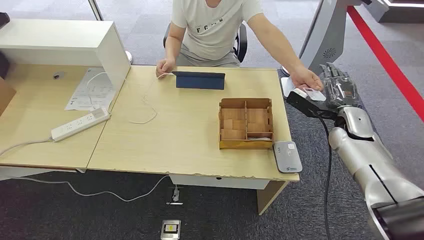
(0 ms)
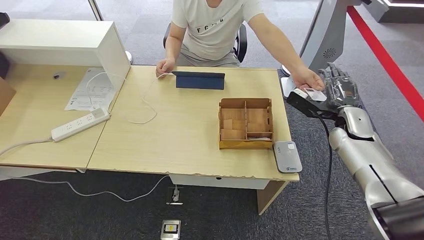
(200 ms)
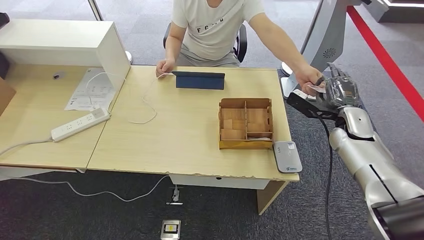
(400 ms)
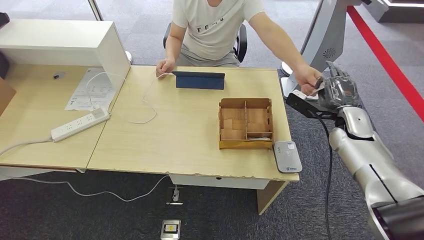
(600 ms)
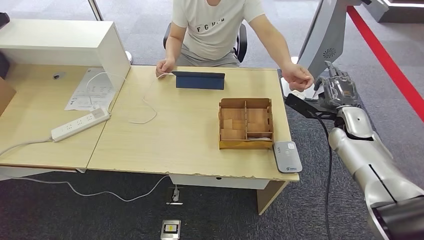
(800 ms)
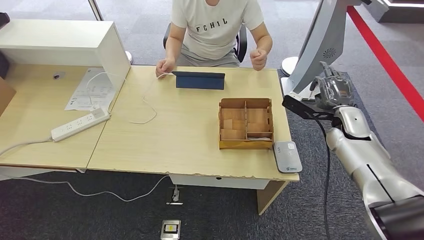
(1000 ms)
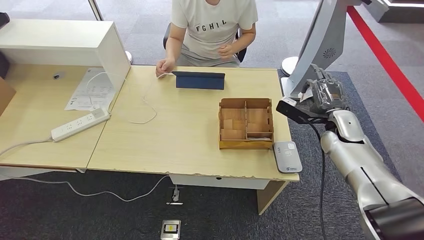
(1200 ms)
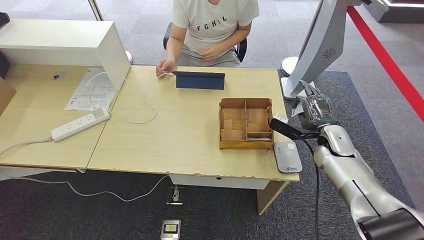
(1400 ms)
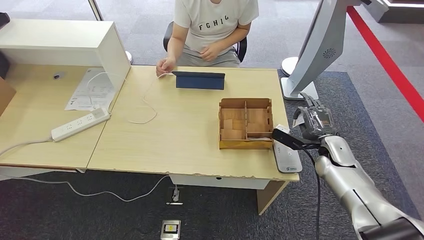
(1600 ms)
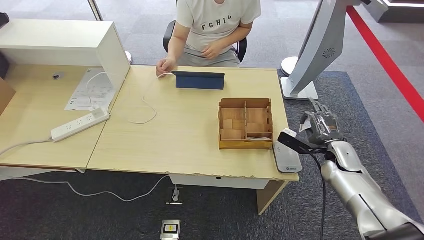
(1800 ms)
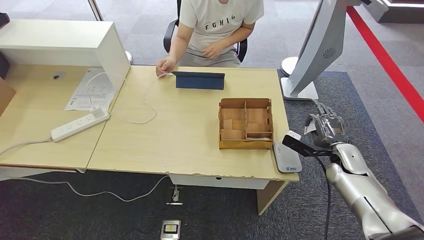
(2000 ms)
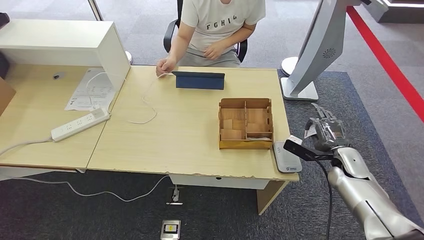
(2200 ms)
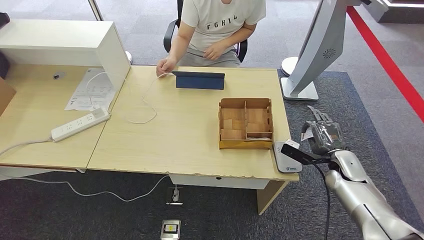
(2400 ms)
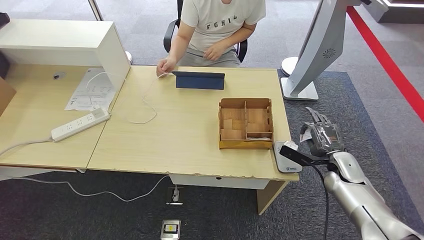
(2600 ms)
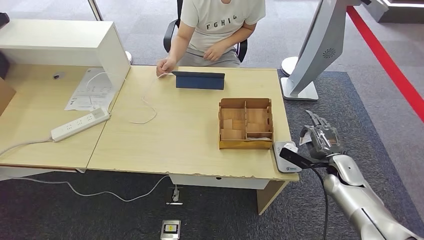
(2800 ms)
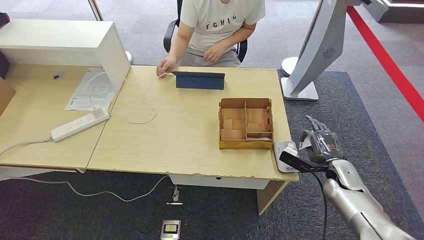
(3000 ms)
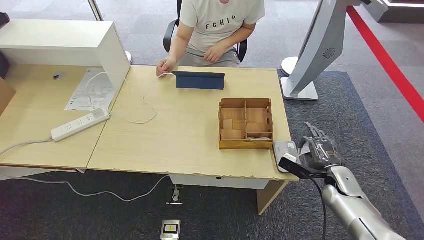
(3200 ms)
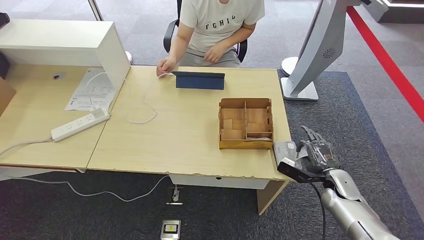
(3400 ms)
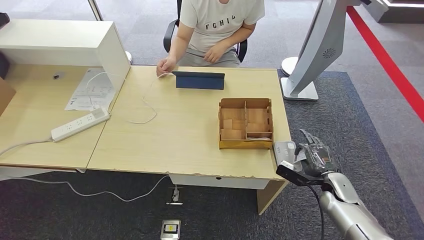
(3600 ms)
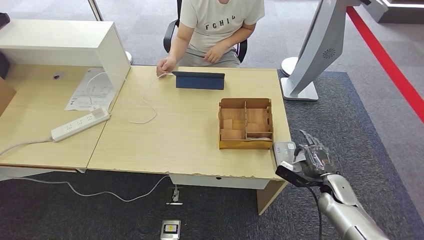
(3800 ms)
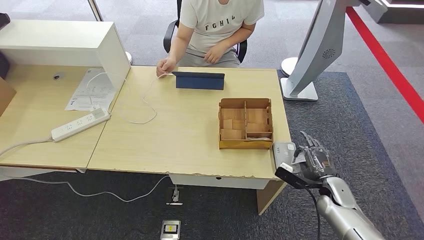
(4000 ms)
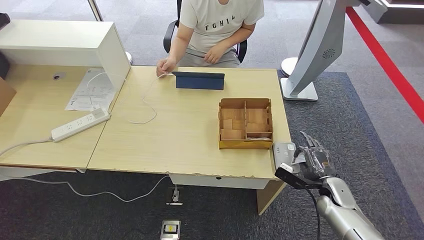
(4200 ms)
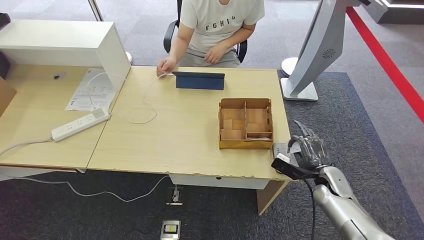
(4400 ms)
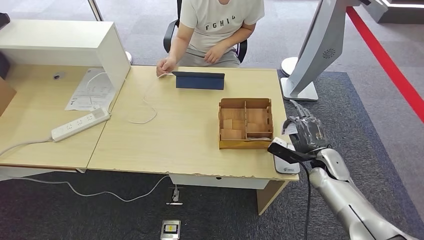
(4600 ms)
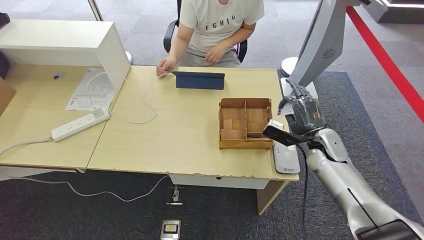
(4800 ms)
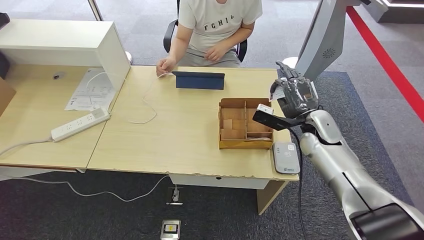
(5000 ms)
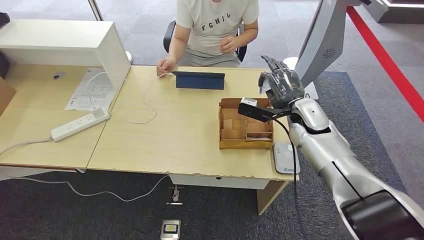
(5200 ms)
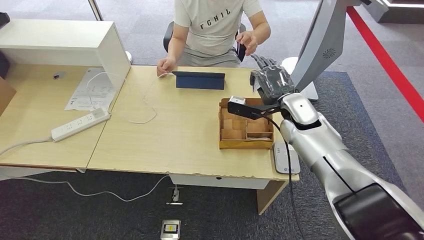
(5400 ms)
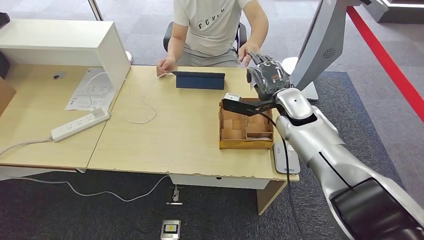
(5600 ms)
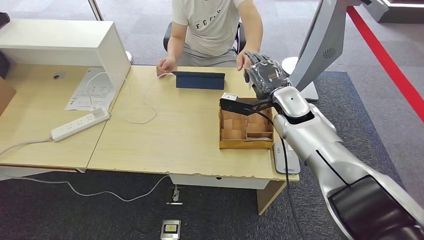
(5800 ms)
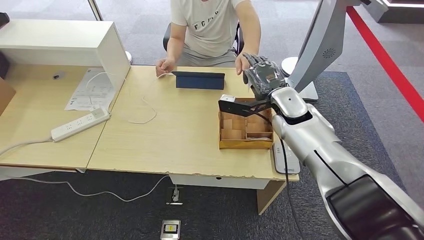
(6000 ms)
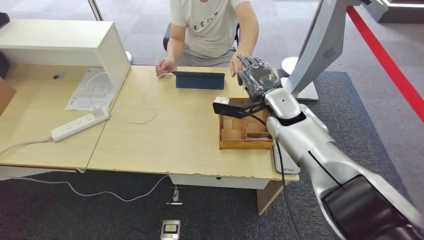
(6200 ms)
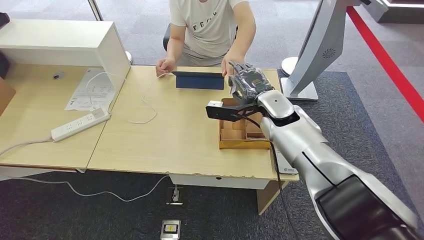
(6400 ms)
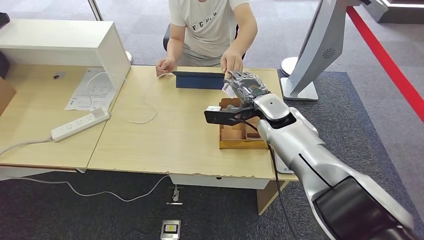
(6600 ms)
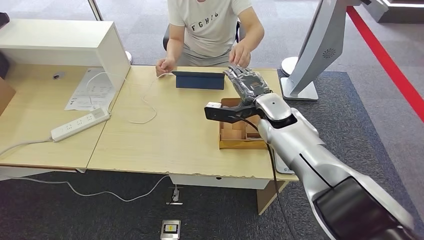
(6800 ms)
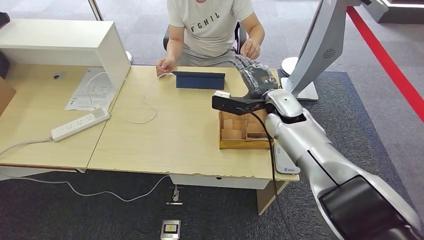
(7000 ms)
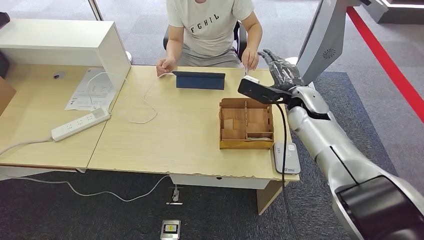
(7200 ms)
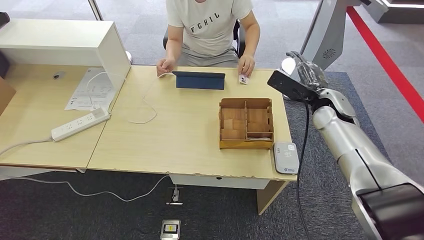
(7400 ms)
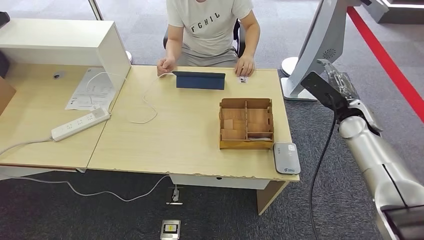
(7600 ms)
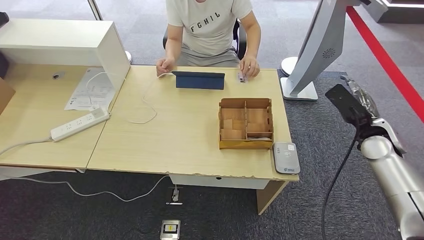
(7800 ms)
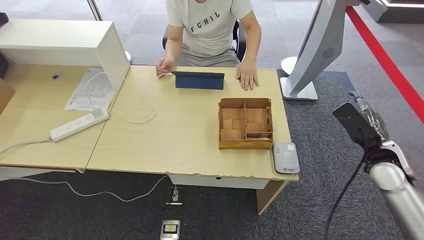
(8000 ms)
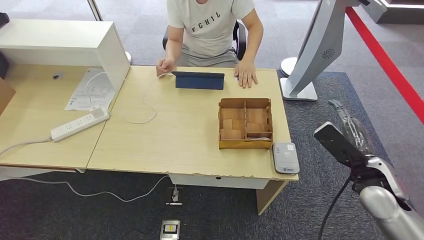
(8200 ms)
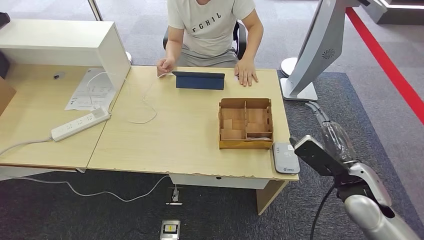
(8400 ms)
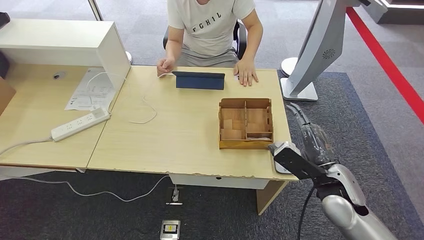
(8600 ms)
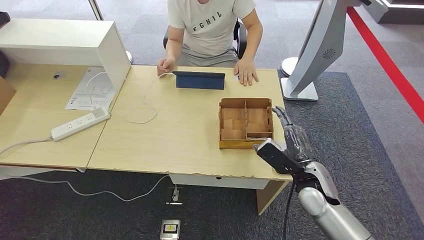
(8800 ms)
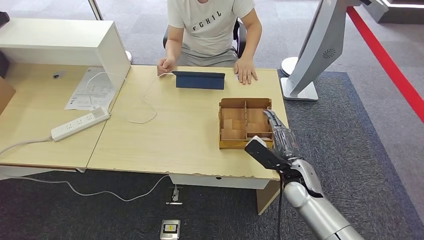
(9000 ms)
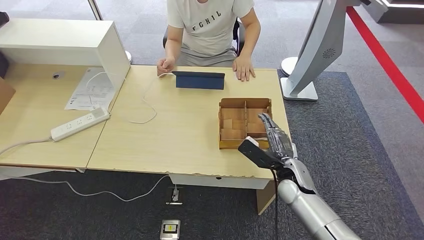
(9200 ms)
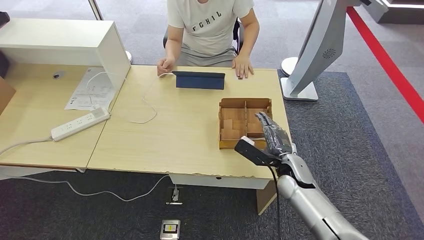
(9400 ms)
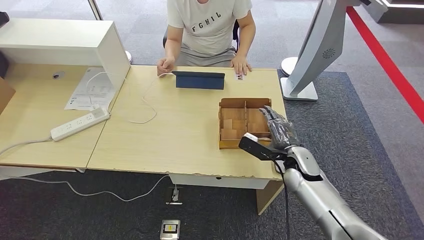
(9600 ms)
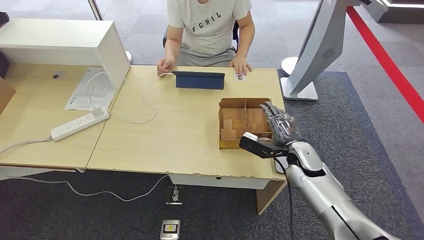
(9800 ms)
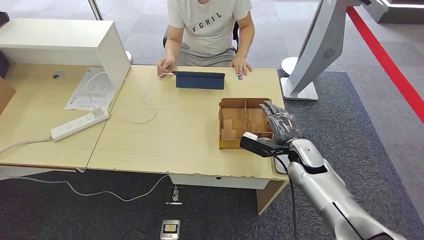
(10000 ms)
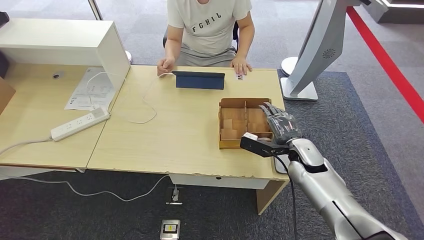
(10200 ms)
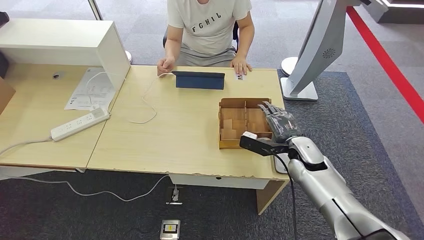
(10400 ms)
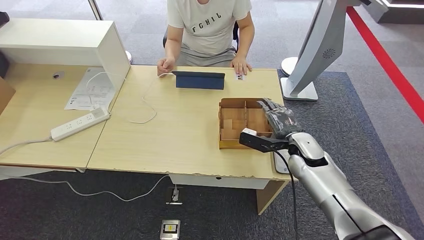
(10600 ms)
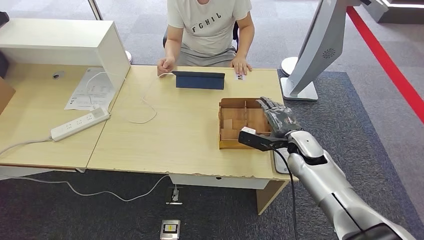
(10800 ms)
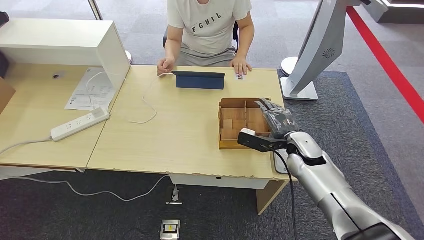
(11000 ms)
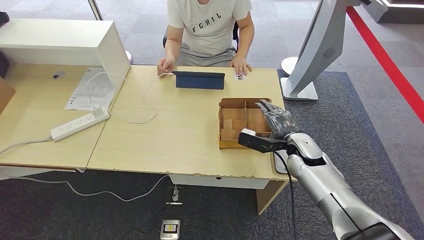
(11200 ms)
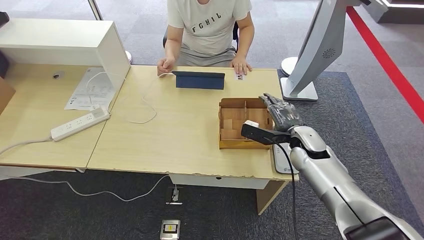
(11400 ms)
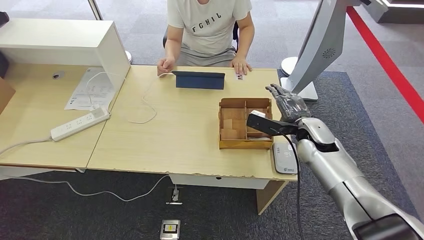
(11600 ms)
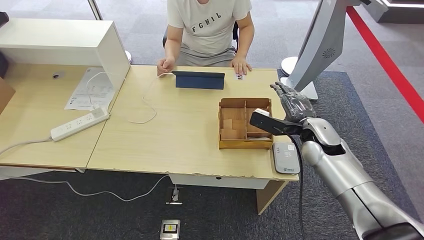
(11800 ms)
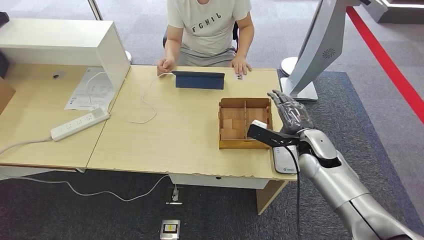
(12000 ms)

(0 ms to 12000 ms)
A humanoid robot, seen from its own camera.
Step, 0 ms - 800 ms: Take the ID card from the person's hand.
Step, 1000 ms - 6000 ms: Place the ID card on the card reader.
Step, 6200 ms - 9600 ms: Hand the ID card to the person.
1600 ms - 3000 ms: The right hand is displaced downward by some 5 cm.
3000 ms - 4400 ms: The right hand shifts by some 5 cm.
4400 ms - 6000 ms: The right hand goes some 30 cm upward, to the left and forward.
6000 ms - 7600 ms: The right hand moves to the right, some 15 cm.
7600 ms - 9000 ms: The right hand travels downward, to the left and backward by some 20 cm.
9000 ms - 10400 ms: The right hand moves forward, some 5 cm.

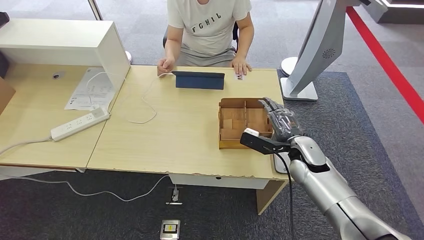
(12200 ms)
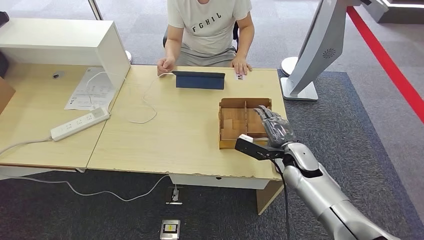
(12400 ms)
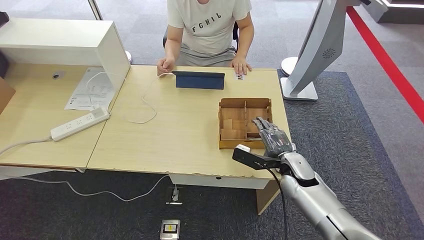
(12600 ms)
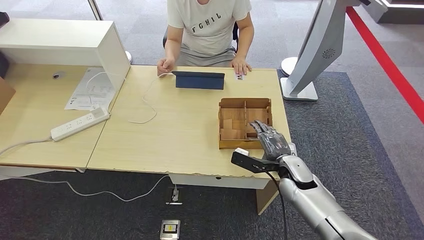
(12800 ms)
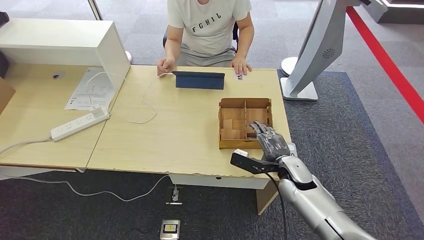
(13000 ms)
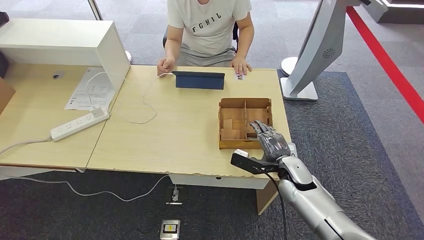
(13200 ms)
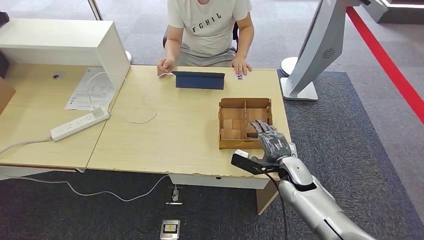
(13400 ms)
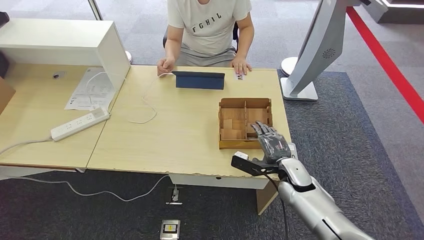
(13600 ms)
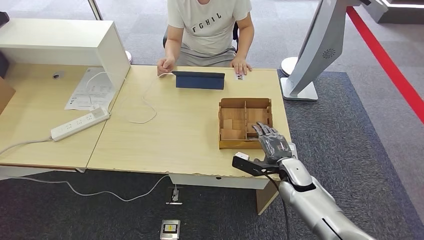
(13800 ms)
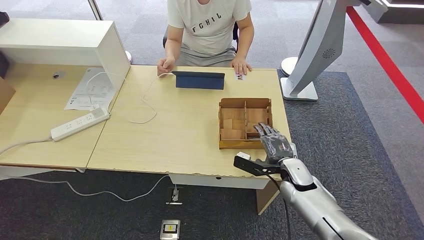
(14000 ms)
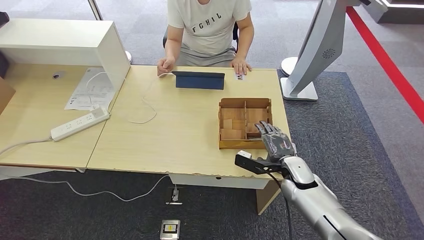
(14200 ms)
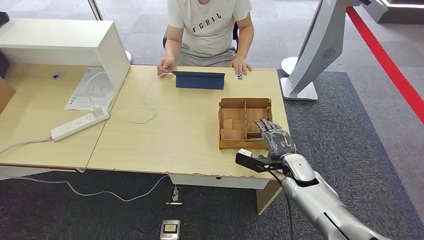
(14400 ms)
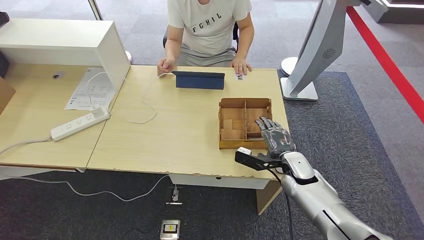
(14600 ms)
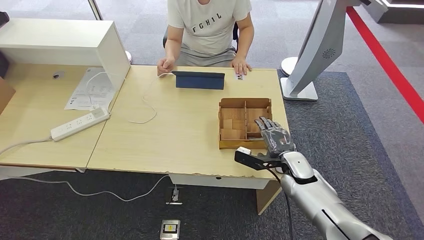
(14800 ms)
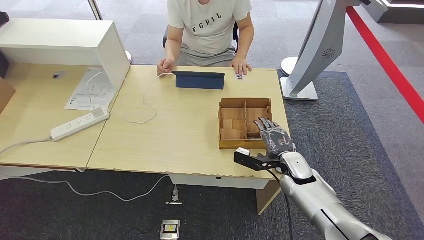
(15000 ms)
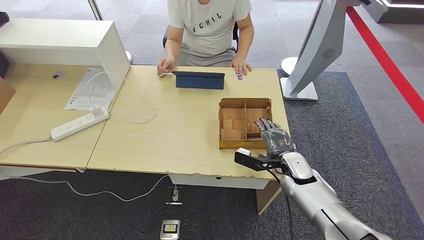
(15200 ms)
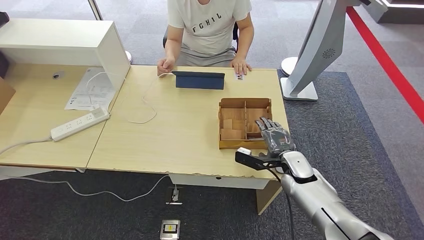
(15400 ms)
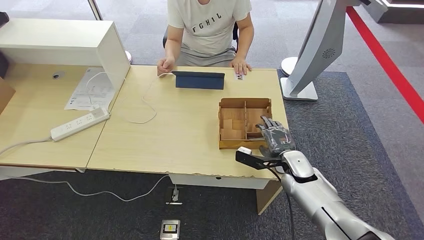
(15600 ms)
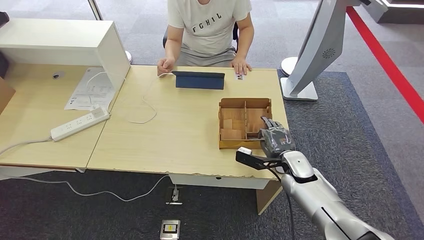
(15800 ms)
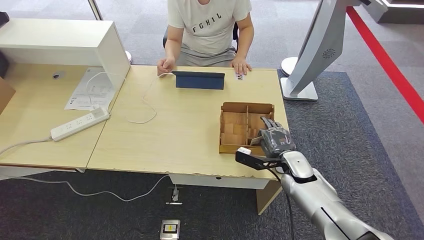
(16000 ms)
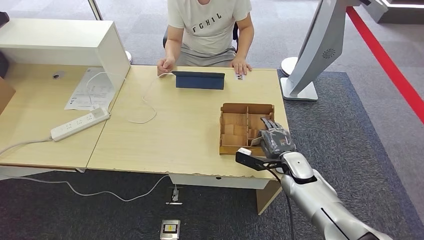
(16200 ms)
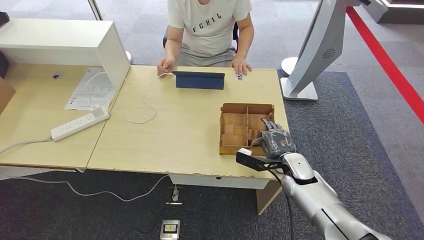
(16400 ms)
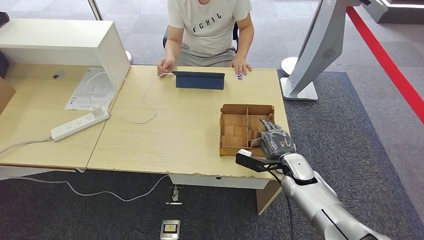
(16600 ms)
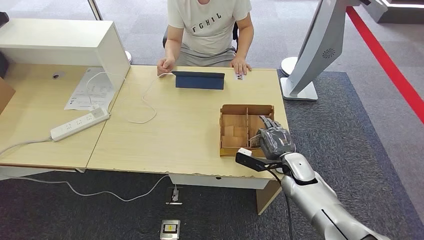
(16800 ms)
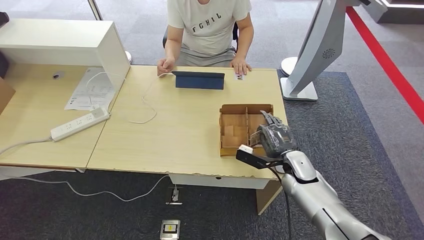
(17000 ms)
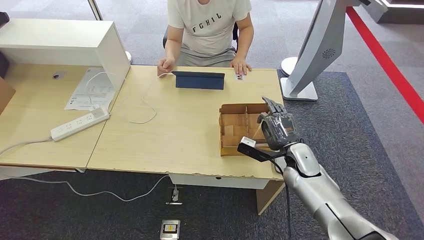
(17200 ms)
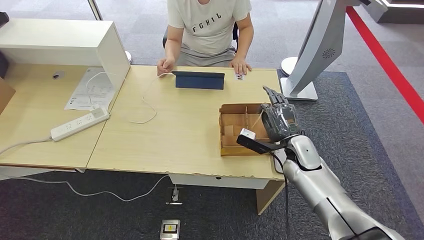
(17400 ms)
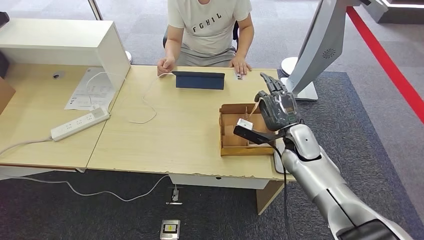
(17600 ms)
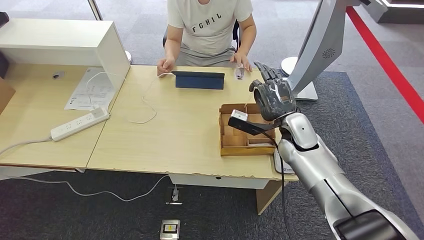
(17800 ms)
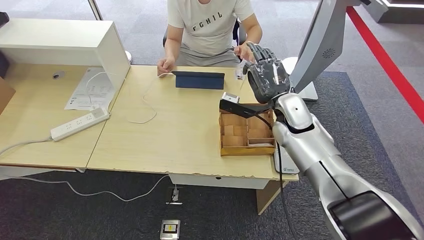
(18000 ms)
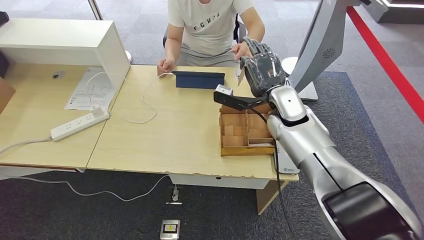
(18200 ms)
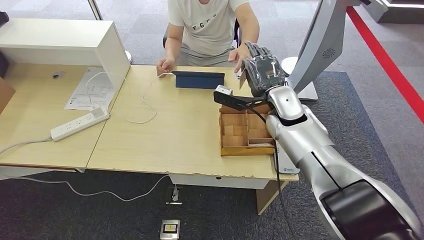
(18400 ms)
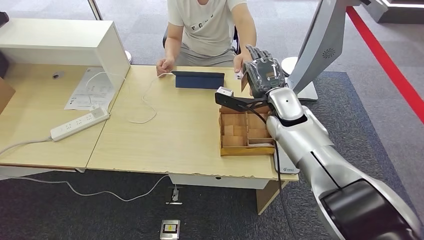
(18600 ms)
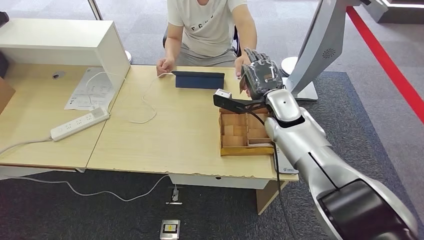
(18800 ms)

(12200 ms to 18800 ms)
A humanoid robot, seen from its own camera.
Step, 12200 ms - 17800 ms: Pick up the room key from the key card box.
12200 ms - 13800 ms: The right hand heads downward, covering roughly 5 cm.
13800 ms - 17200 ms: The hands make only small movements.
17200 ms - 18800 ms: The right hand travels upward, to the left and forward by roughly 15 cm.
